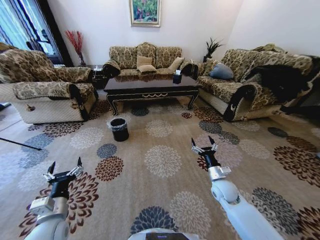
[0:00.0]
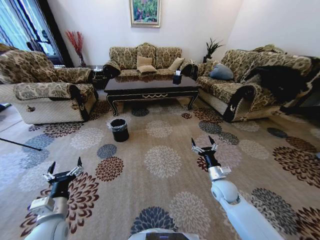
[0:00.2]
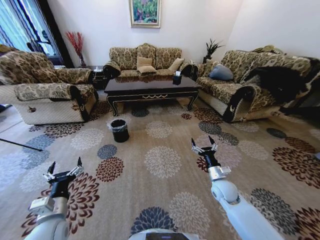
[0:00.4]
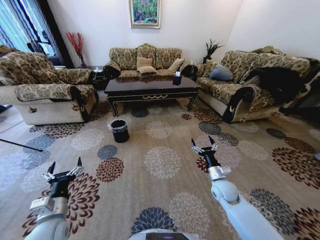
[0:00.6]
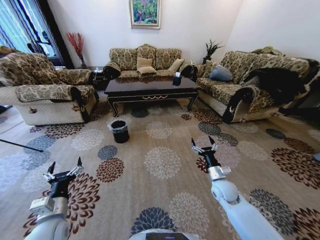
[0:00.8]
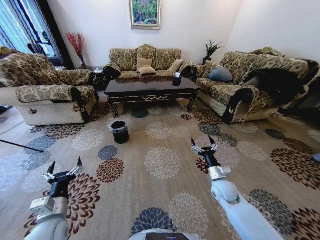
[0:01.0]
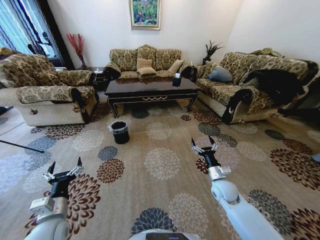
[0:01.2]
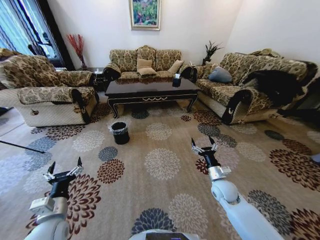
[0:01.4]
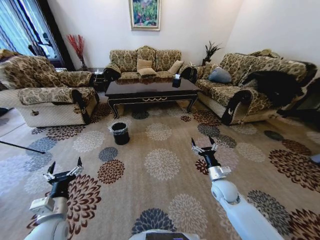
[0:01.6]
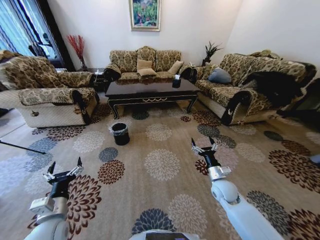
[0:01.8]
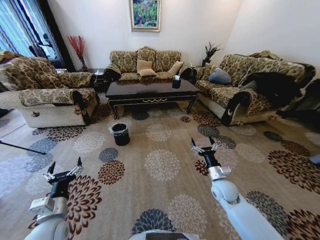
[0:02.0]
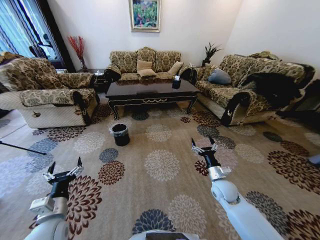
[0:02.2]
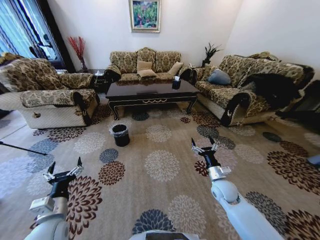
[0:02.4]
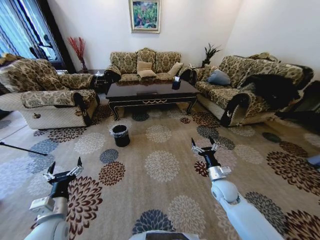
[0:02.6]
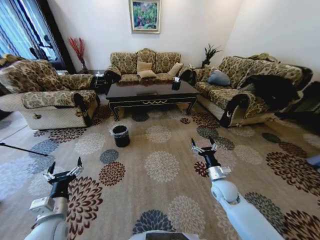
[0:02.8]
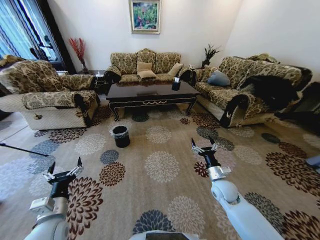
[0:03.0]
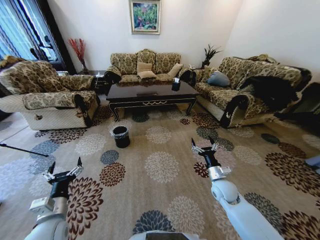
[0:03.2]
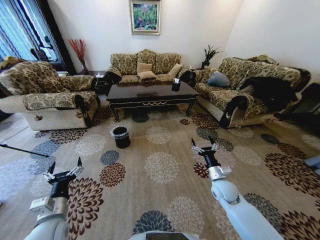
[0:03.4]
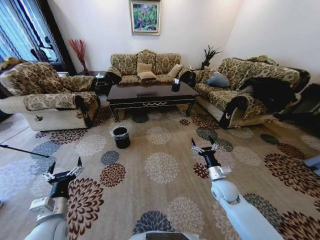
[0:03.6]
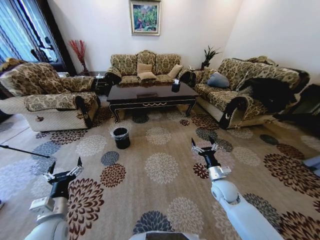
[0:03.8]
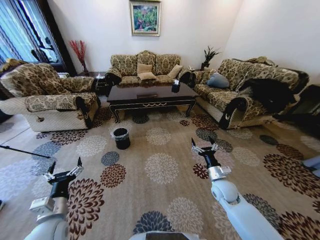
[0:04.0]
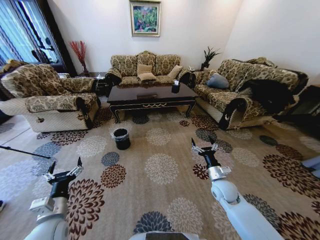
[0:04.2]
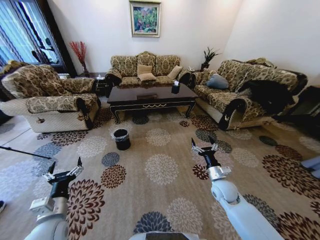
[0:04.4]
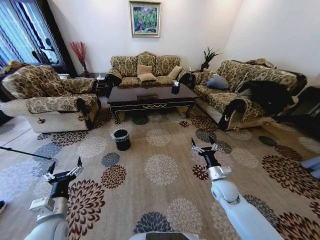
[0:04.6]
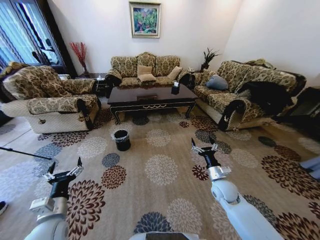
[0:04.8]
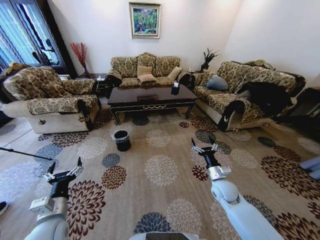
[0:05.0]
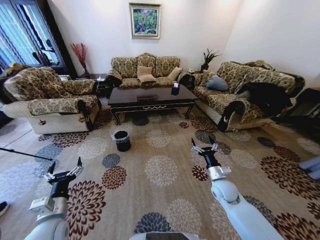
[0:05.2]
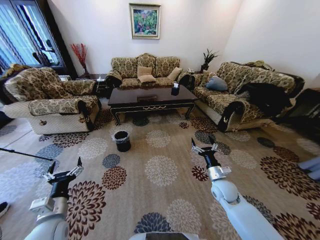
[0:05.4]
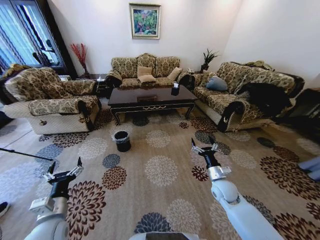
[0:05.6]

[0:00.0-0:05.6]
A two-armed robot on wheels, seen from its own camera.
Task of the whole recording: Move to the front of the table and pick up the trash from the floor, then place it into the trash bin.
0:04.2 to 0:05.6: The two grippers keep their place.
